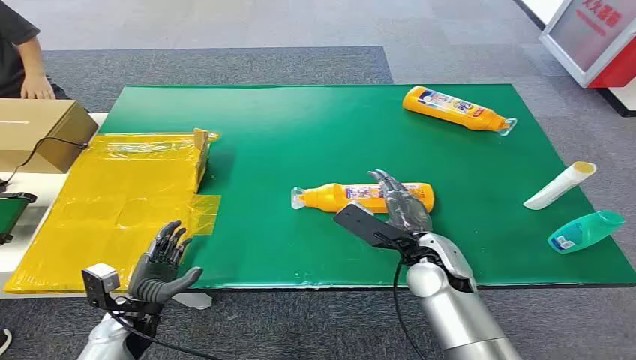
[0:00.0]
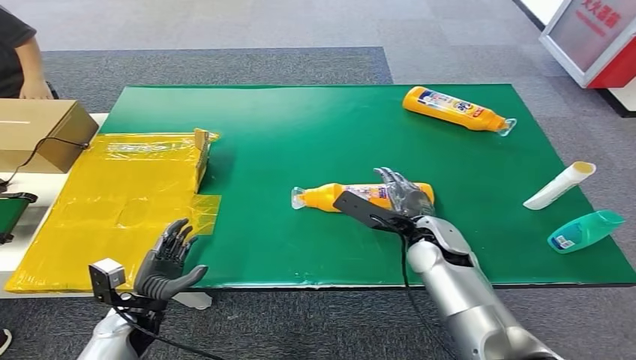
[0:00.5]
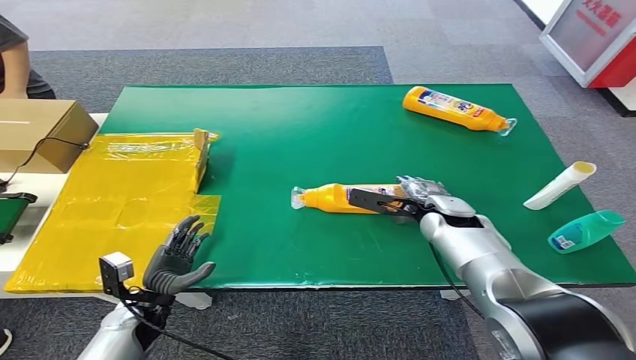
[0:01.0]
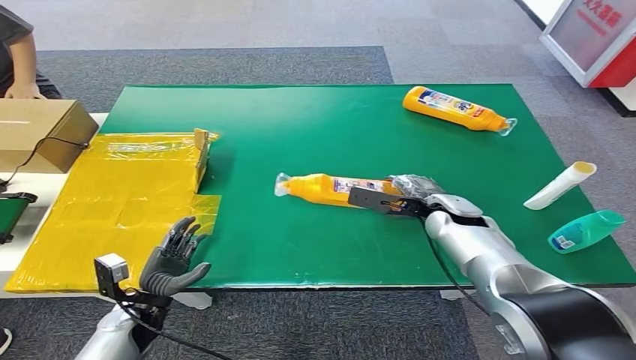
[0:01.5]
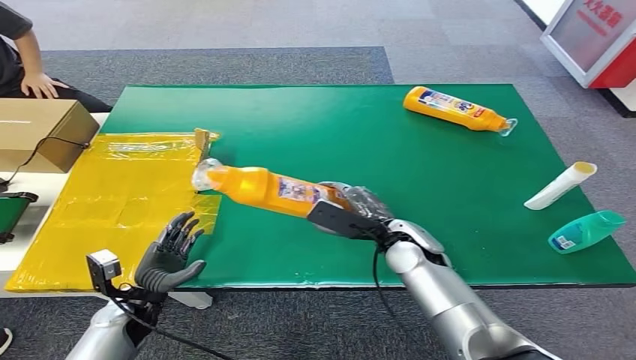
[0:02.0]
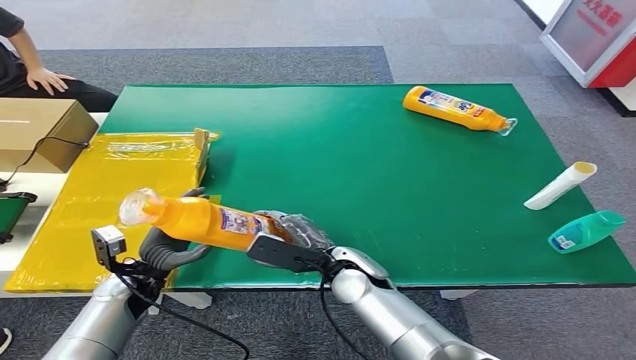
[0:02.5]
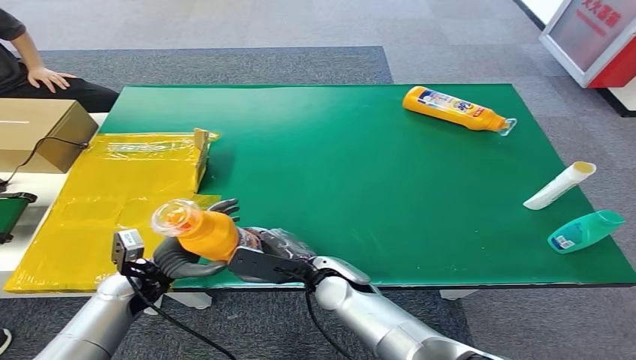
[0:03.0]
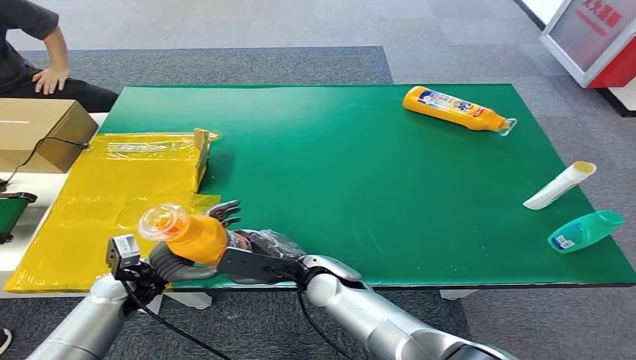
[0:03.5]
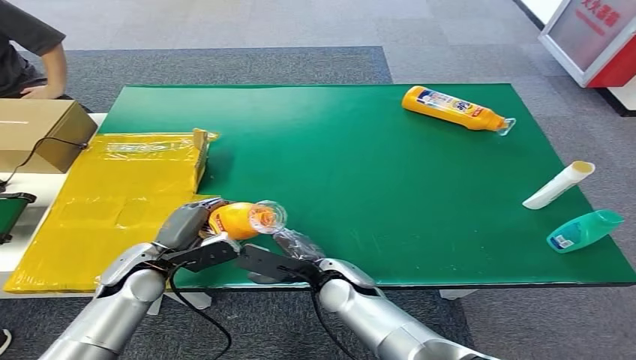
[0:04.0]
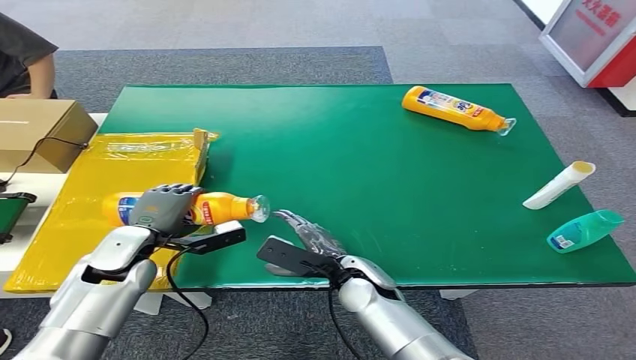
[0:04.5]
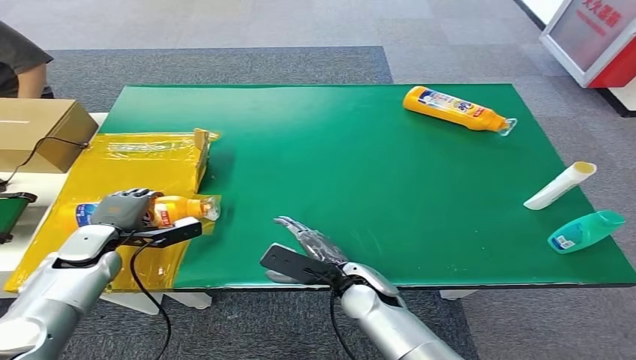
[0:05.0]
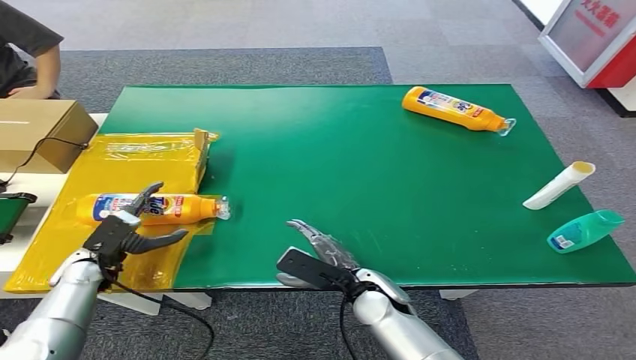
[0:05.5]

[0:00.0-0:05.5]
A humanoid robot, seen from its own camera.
Step, 0:00.0 to 0:01.5: Pick up the bottle from the table.
Step, 0:02.0 to 0:05.5: Turn the bottle to the front side.
0:03.5 to 0:05.5: The right hand moves to the right, roughly 5 cm. The left hand moves to the left, about 10 cm.
